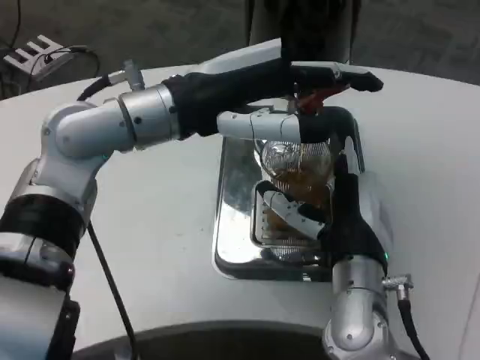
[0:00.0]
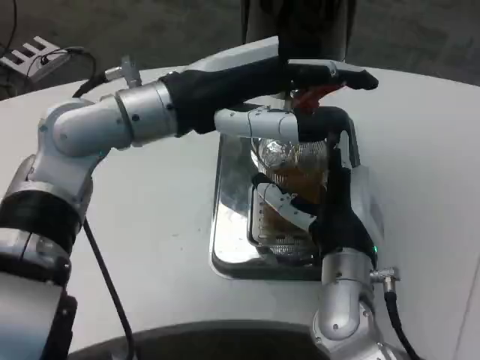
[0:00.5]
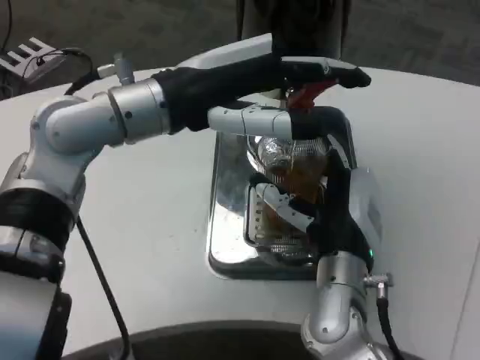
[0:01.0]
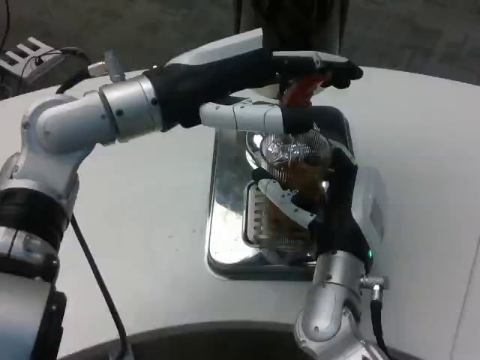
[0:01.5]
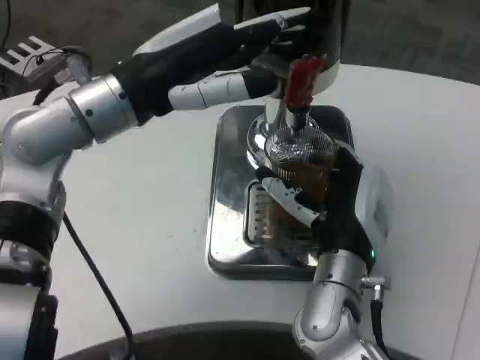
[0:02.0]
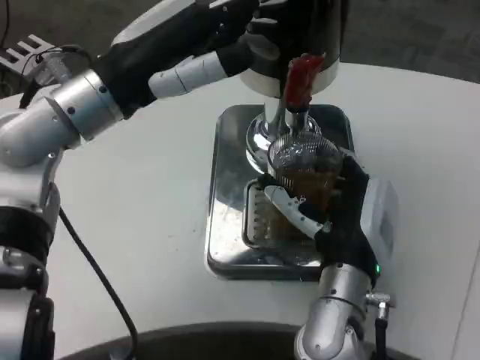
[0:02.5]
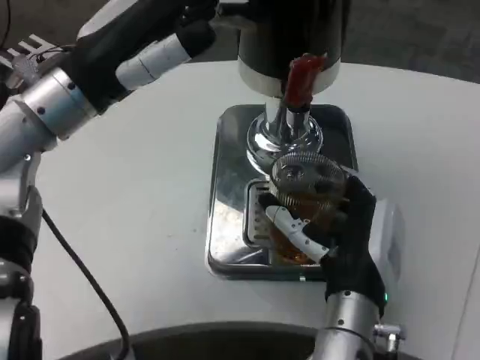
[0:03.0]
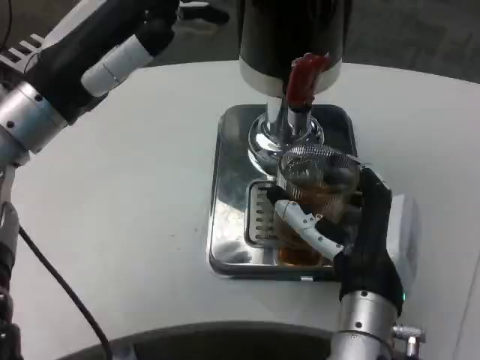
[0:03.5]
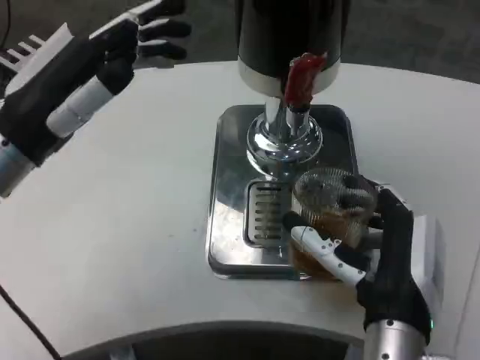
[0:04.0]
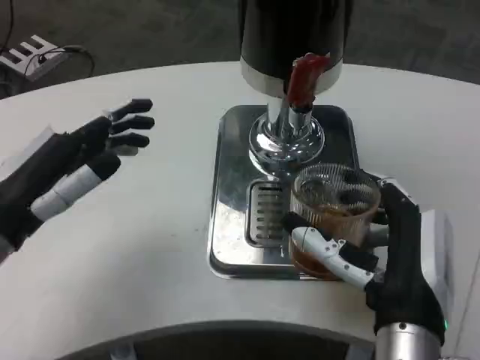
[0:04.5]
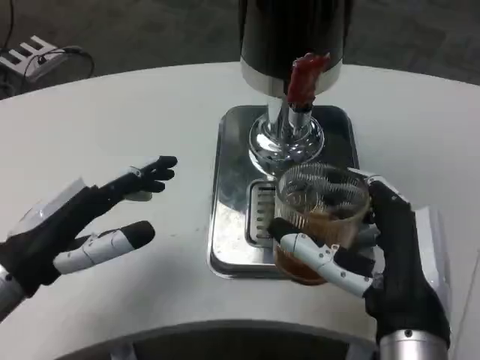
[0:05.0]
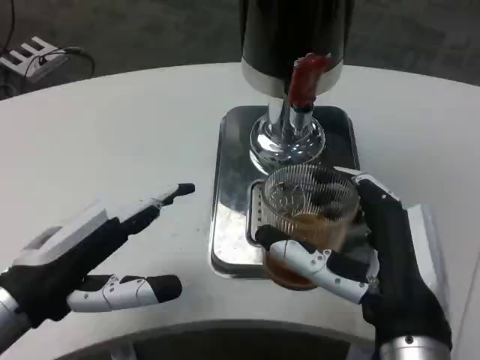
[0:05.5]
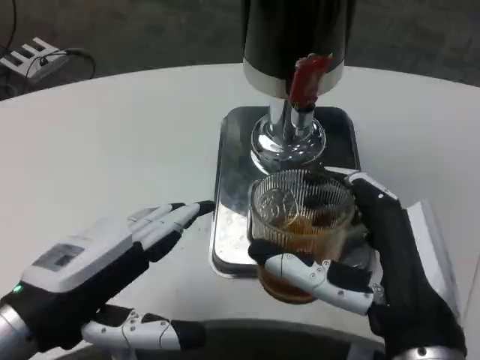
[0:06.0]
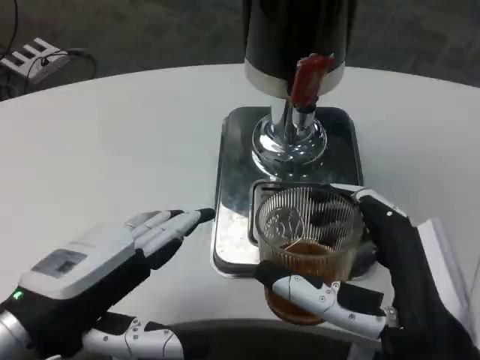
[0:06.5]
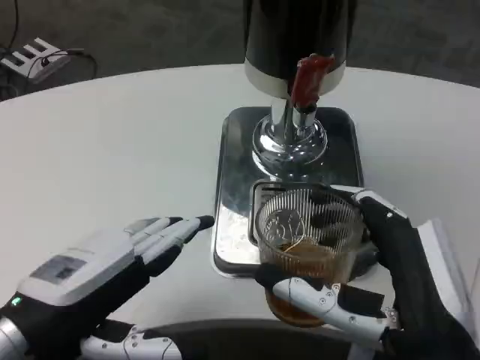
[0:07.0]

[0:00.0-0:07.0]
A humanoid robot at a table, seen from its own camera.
Task of the whole recording: Grasp the cup under the faucet to collect the drink, then remove the cup.
0:02.0 to 0:03.5: The right hand moves backward, approximately 5 cm; the left hand heads to the left, covering some 5 cm.
0:03.5 to 0:05.0: The right hand shifts approximately 5 cm backward. Meanwhile the left hand goes roughly 15 cm downward and backward.
0:05.0 to 0:07.0: The left hand is displaced backward by roughly 5 cm, while the right hand shifts by about 5 cm.

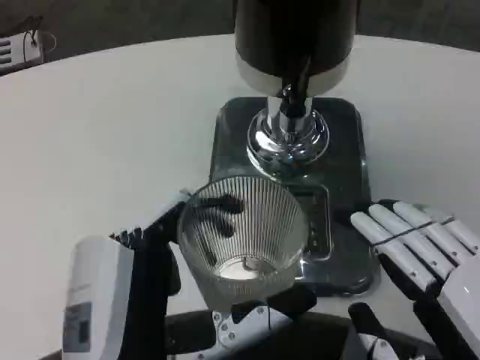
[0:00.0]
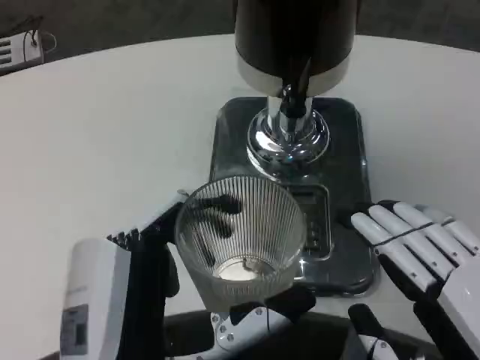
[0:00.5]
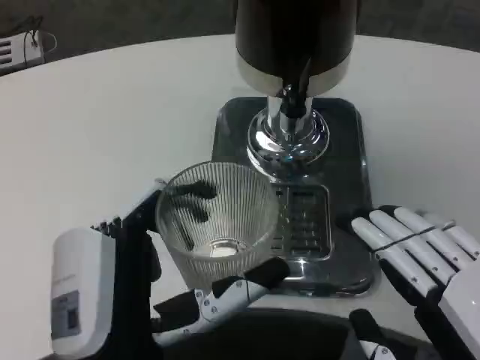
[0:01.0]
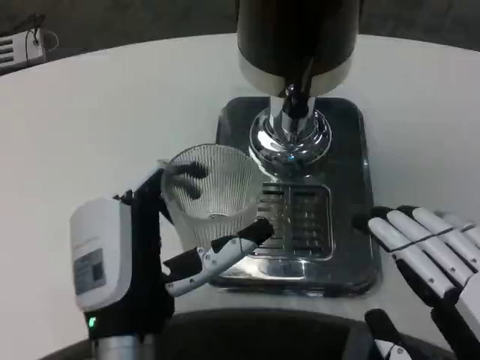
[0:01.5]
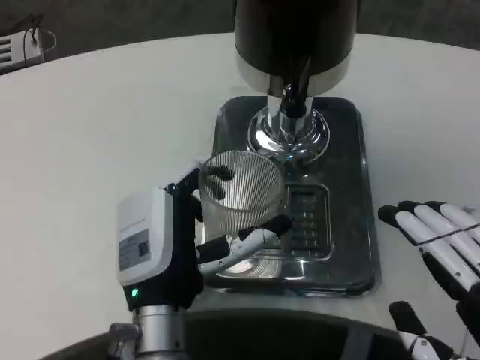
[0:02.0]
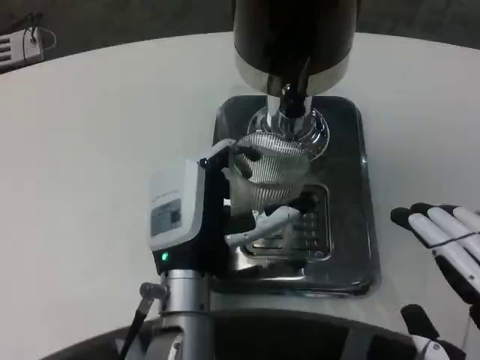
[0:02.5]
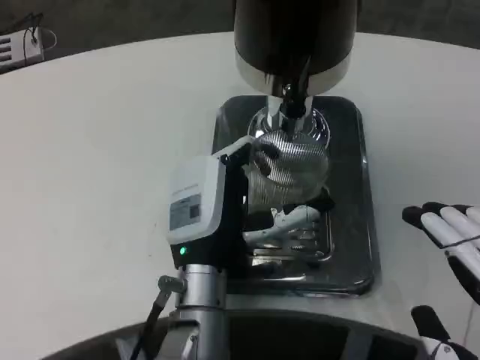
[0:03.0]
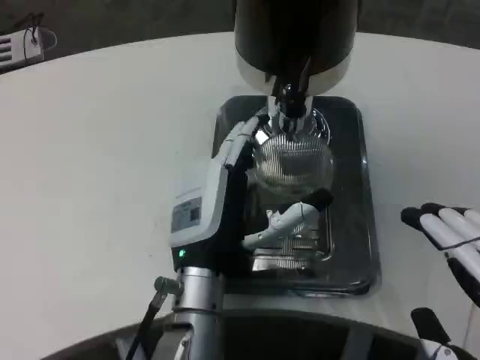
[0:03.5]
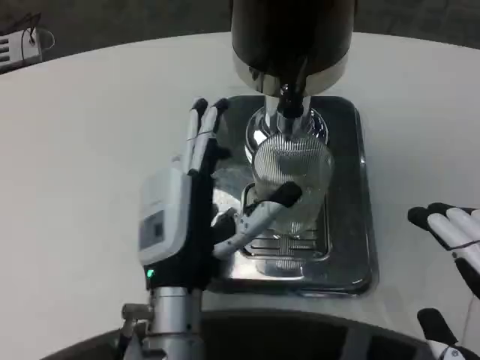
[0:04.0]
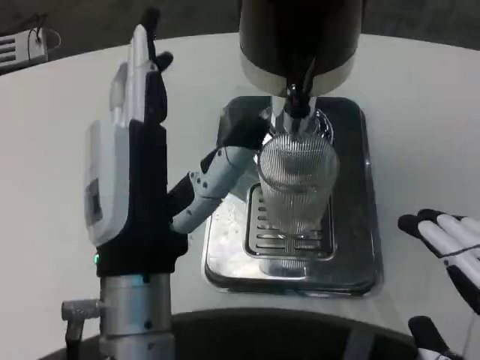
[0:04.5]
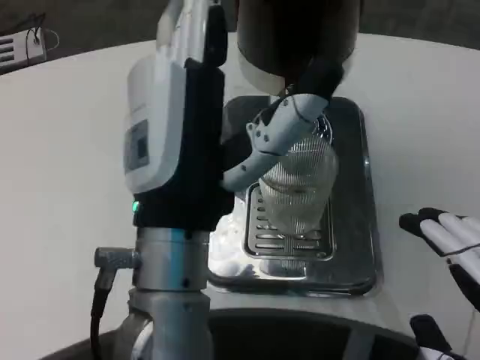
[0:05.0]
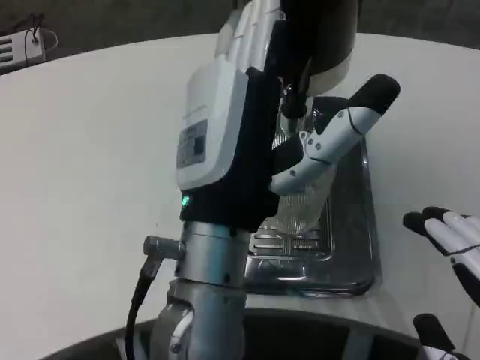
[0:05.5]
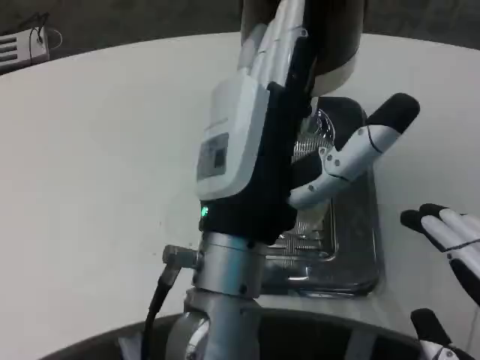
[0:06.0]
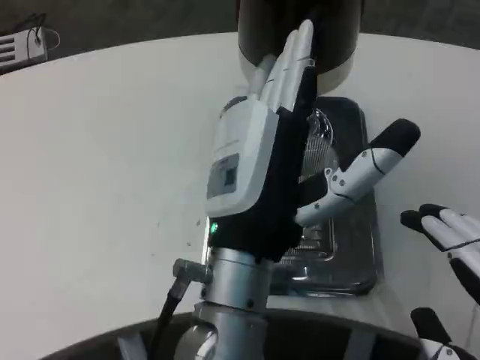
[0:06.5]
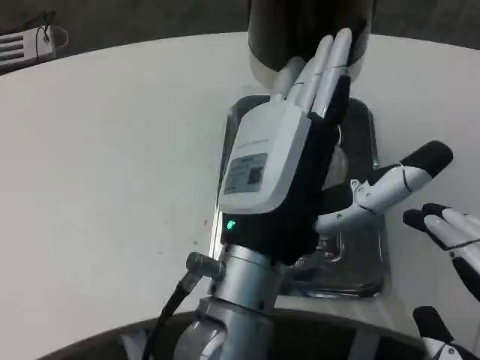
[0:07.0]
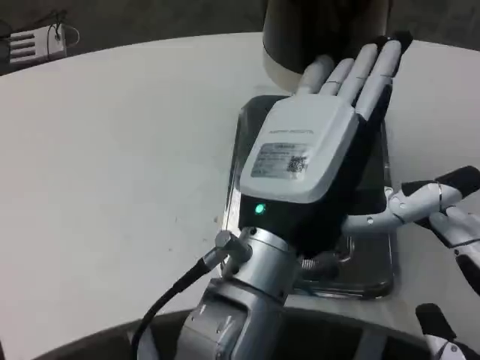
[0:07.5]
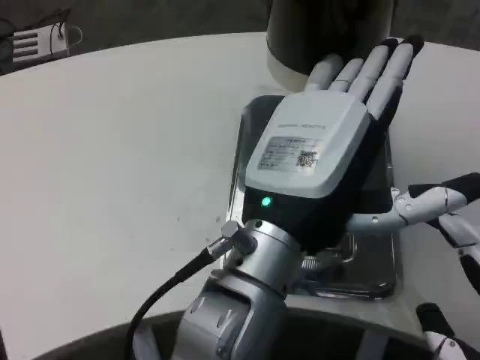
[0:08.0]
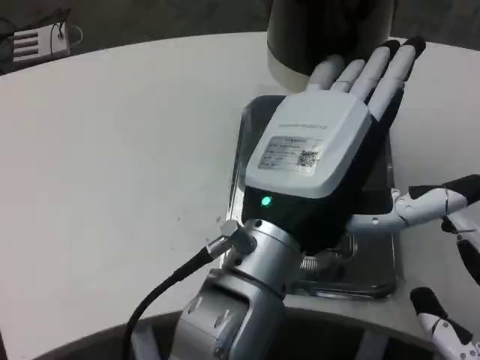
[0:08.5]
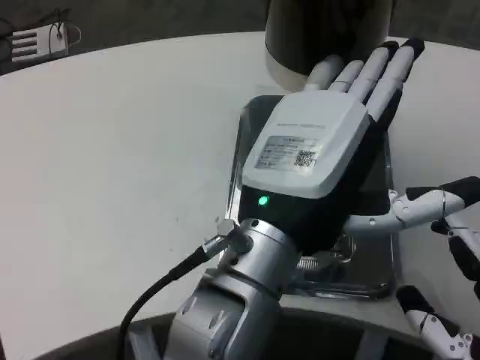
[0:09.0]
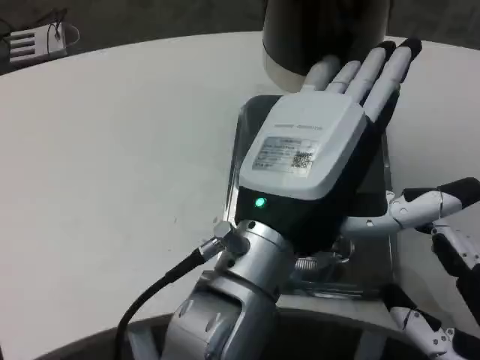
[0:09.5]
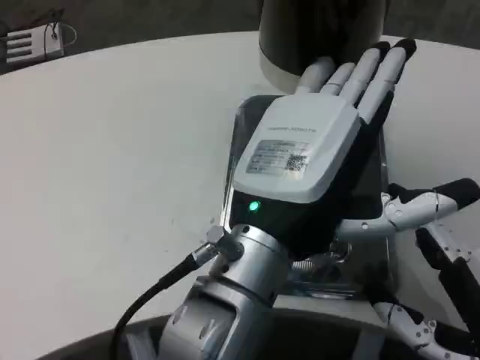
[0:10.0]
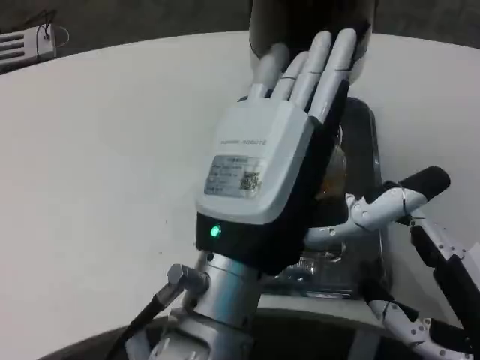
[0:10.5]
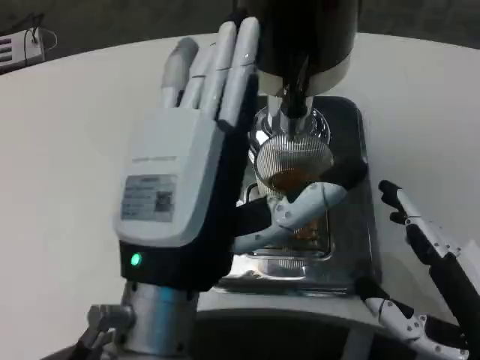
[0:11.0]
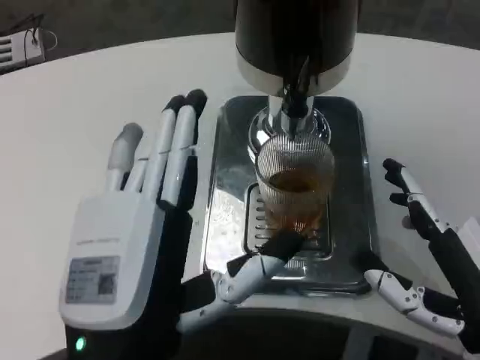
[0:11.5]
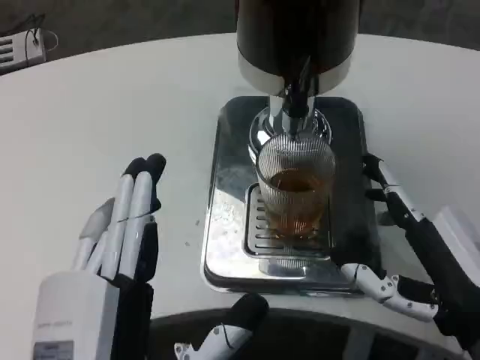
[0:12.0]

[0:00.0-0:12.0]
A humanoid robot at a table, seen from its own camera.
Task of the whole recording: Grasp the cup under the faucet to collect the drink, then remove the cup.
0:00.0 to 0:02.0: The left hand shifts approximately 15 cm forward.
0:04.0 to 0:06.0: The left hand heads upward, covering approximately 10 cm.
0:08.0 to 0:10.0: The right hand is displaced forward by some 5 cm.
0:10.0 to 0:12.0: The left hand travels downward, backward and to the left by roughly 15 cm. Meanwhile the right hand moves forward, some 5 cm.

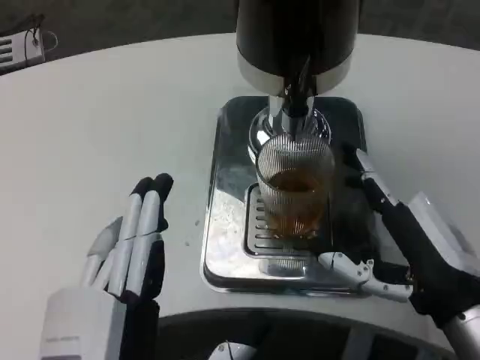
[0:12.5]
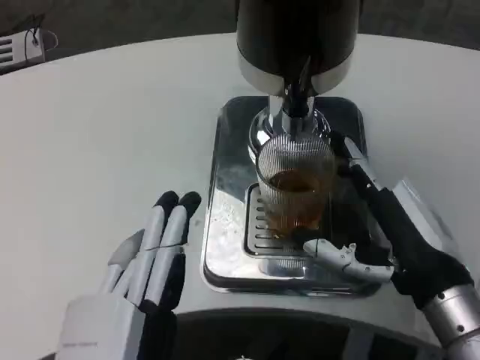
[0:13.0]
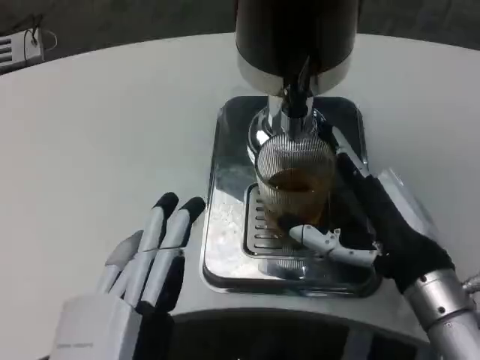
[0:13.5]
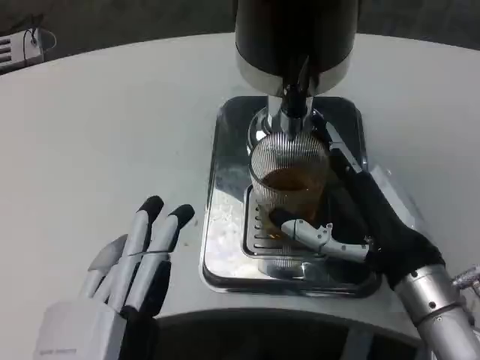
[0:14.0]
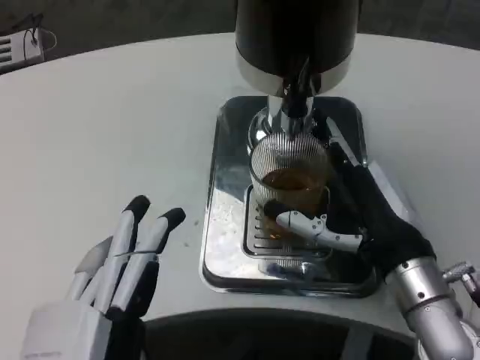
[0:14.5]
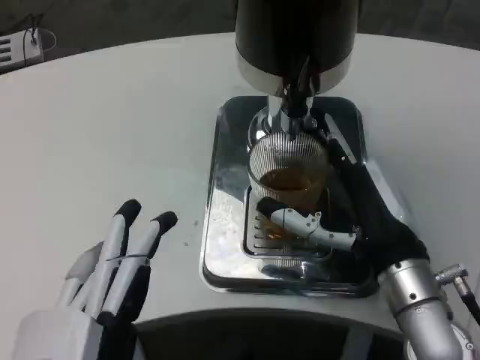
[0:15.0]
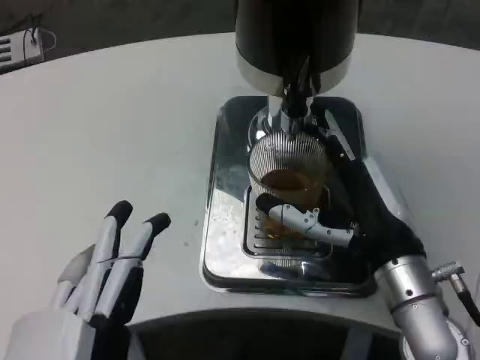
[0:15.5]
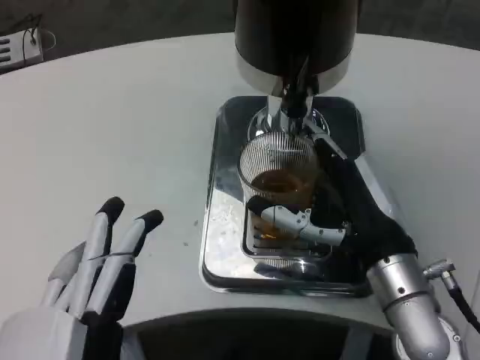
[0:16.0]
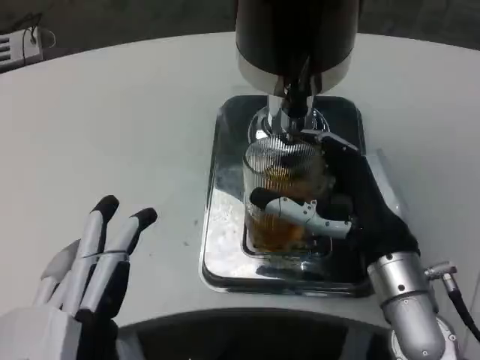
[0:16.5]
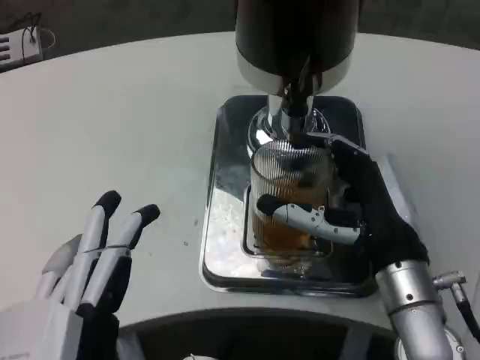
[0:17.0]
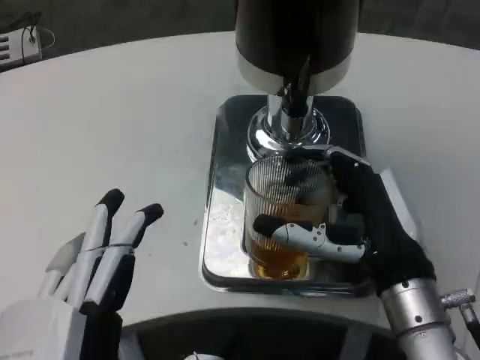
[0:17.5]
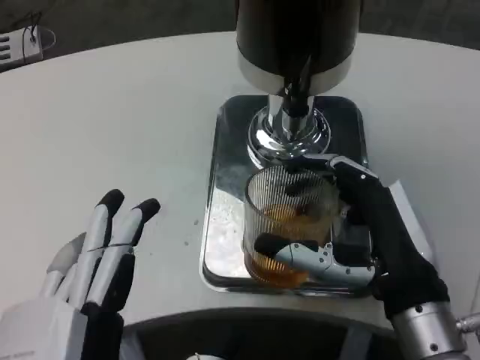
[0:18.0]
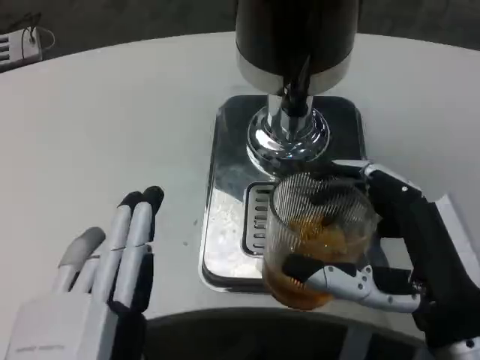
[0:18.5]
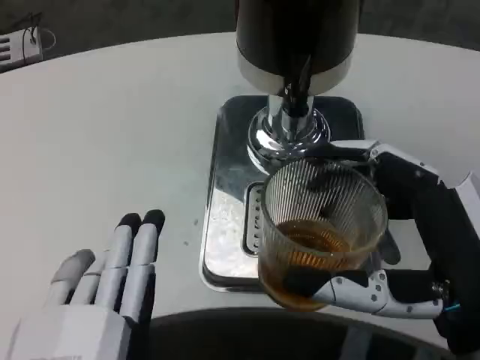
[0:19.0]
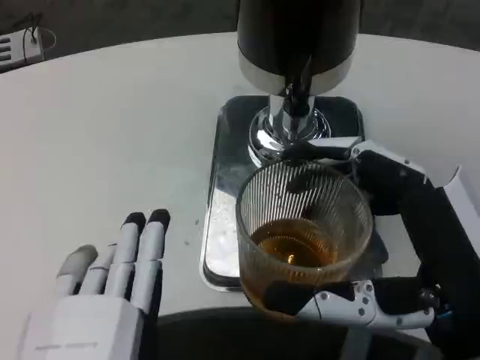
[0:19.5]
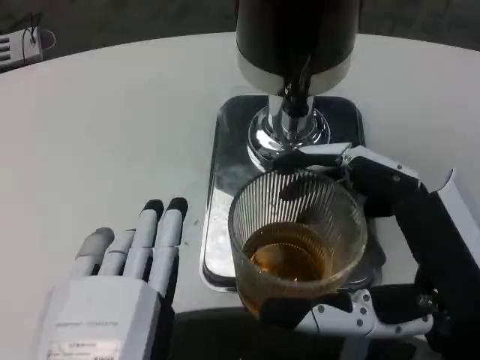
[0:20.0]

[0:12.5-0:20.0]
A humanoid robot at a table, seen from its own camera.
Task of the whole recording: Grasp the cup under the faucet to collect the drink, then remove the cup.
0:12.5 to 0:14.5: The right hand ends up some 5 cm from where it was.
0:14.5 to 0:16.5: The hands stay close to where they were, moving slightly.
0:16.5 to 0:18.0: The right hand moves backward, roughly 5 cm.
0:18.0 to 0:20.0: The right hand moves backward, approximately 5 cm.
